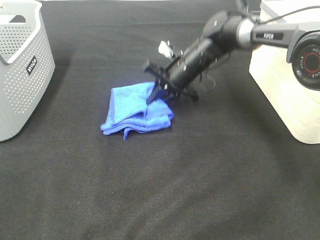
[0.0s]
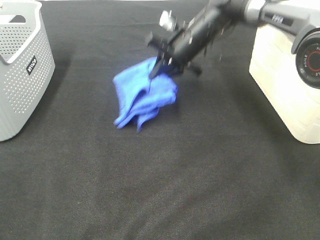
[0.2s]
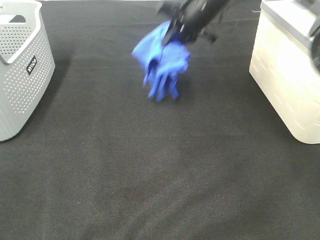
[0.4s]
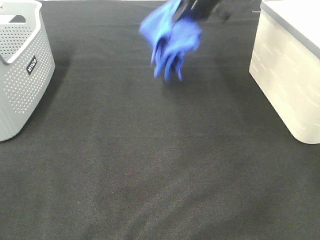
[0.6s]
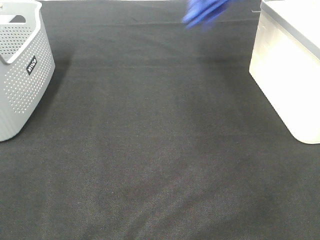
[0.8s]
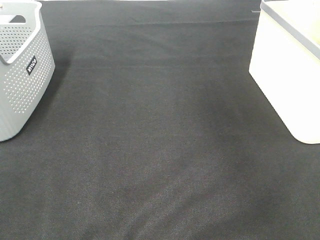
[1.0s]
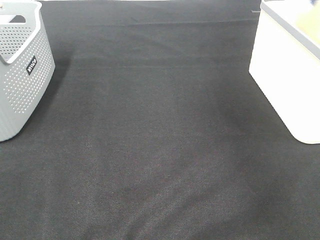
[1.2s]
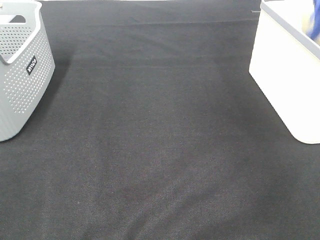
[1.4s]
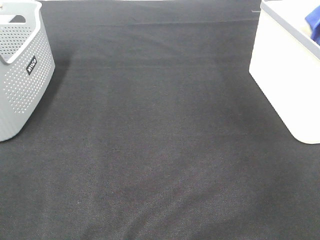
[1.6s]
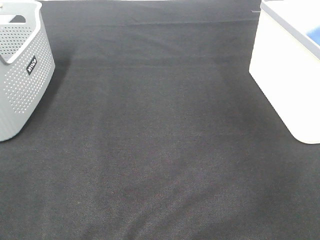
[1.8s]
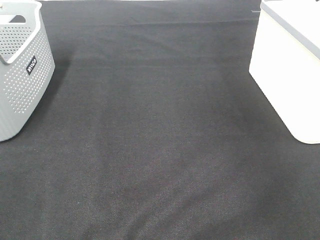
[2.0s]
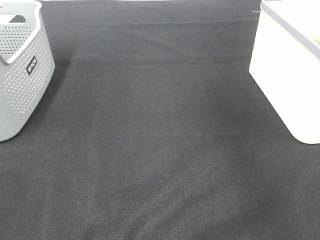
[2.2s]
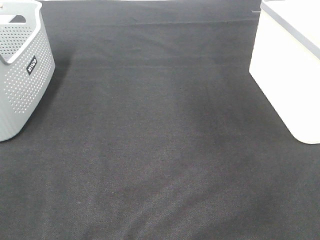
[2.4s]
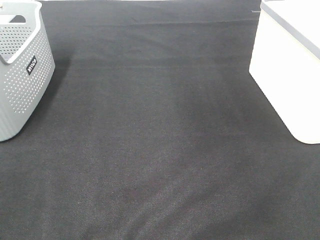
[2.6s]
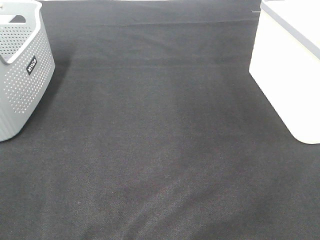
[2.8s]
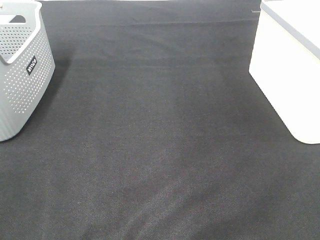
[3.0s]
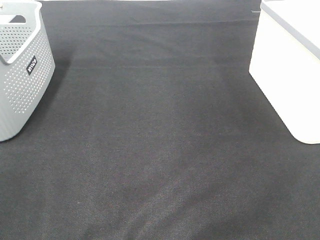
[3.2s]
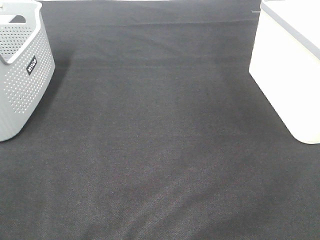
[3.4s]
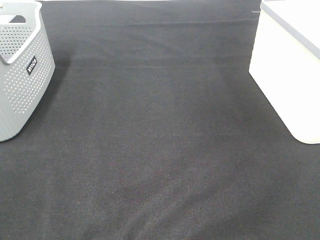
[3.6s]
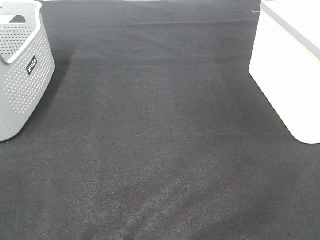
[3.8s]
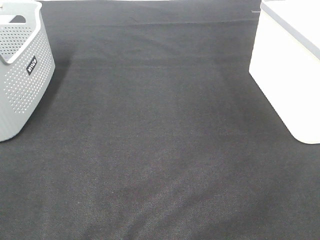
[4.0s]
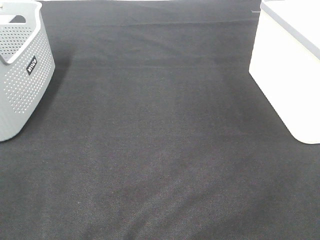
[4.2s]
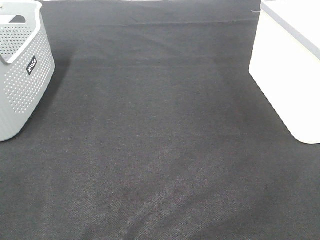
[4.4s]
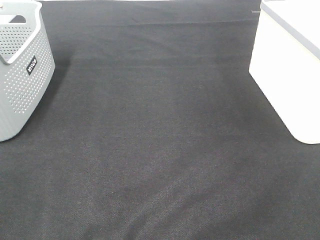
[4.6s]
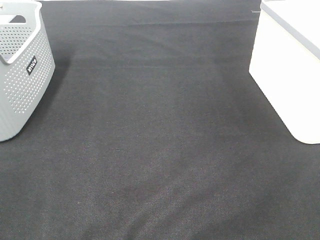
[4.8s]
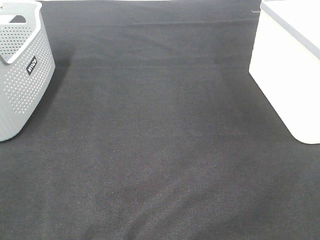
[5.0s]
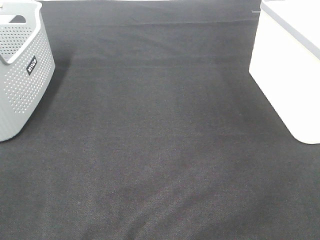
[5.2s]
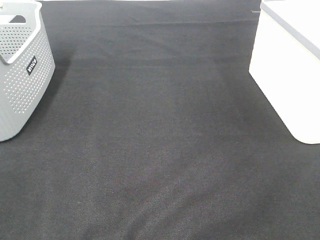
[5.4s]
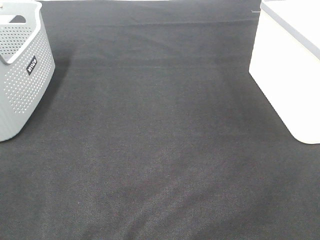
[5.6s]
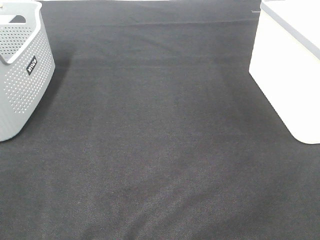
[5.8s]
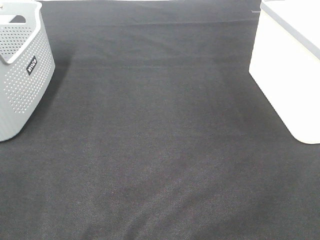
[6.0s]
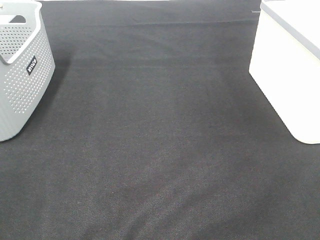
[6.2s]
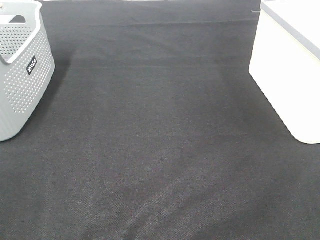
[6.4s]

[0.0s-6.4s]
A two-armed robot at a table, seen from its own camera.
Step, 0.0s to 1.8s: Right hand: place the blue towel in right basket.
0.0s to 1.6s: The right gripper travels to the right and upward by roughly 40 cm.
4.8s to 6.4s: The two grippers keep their place.
